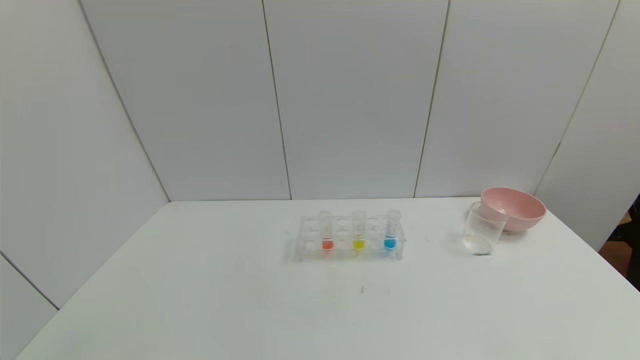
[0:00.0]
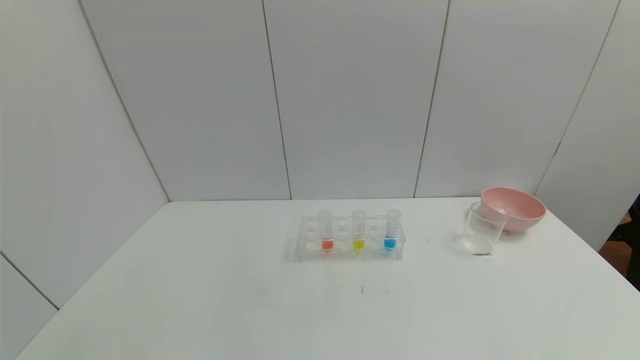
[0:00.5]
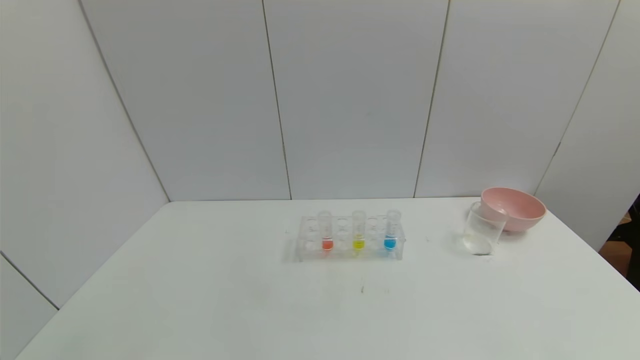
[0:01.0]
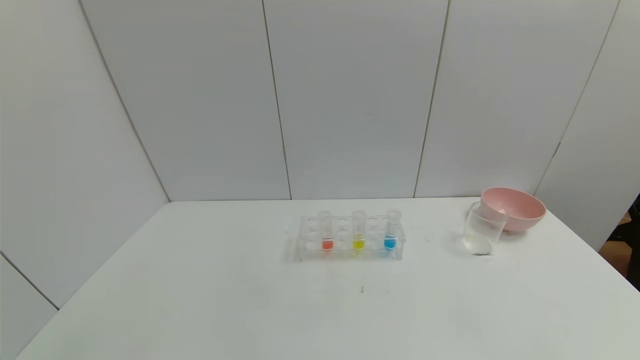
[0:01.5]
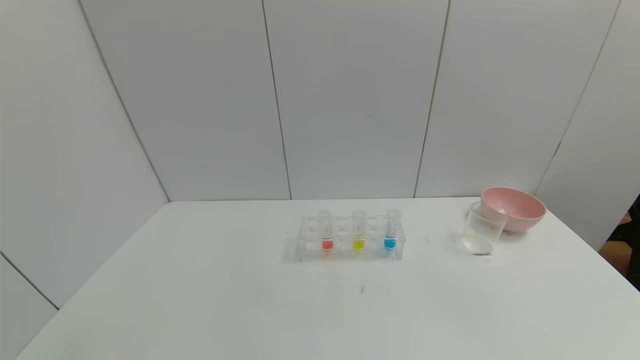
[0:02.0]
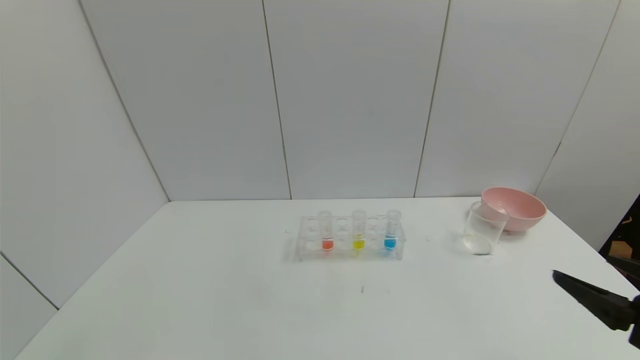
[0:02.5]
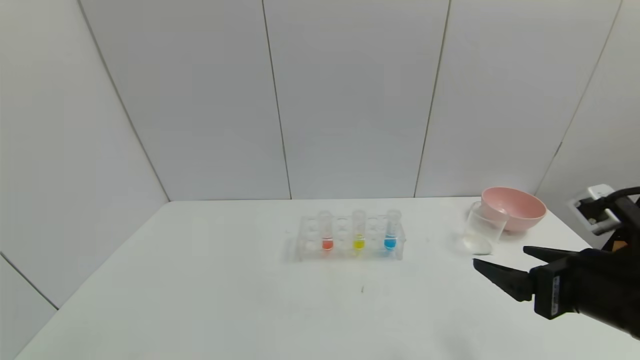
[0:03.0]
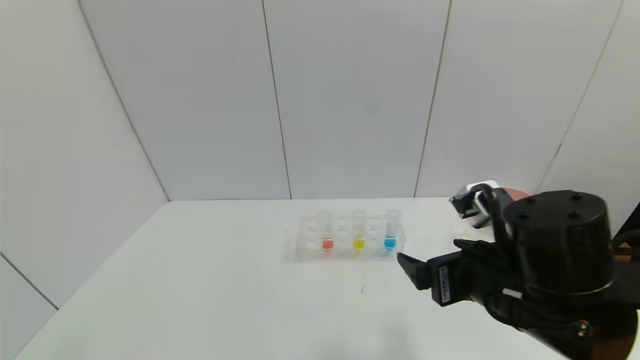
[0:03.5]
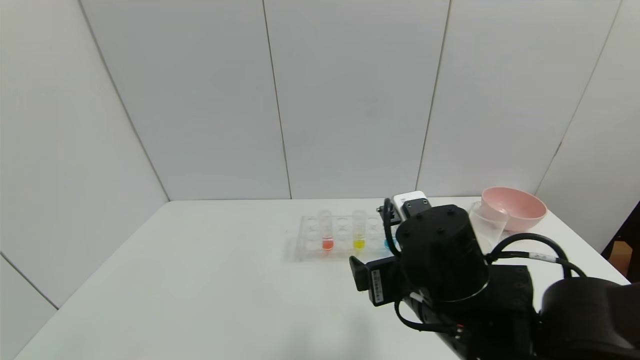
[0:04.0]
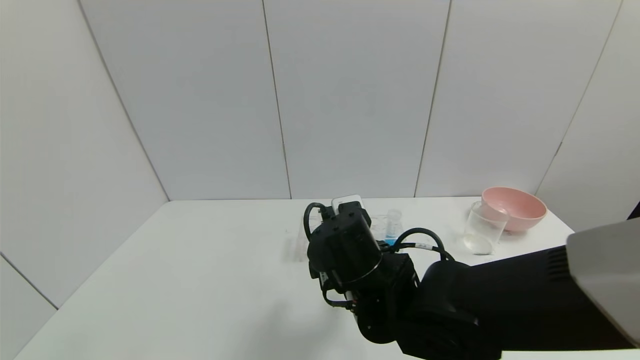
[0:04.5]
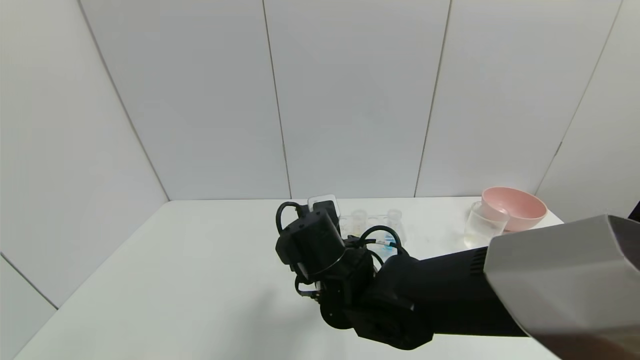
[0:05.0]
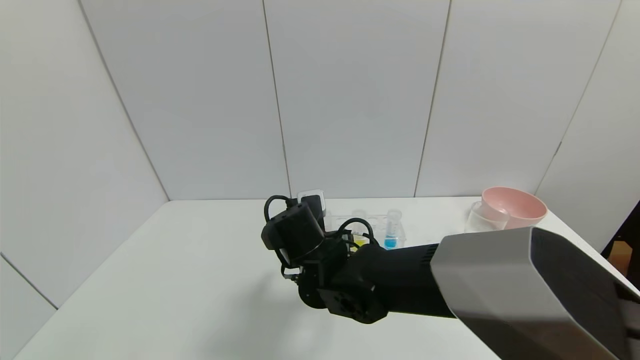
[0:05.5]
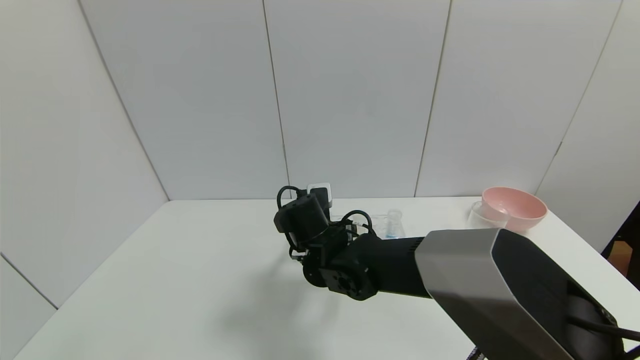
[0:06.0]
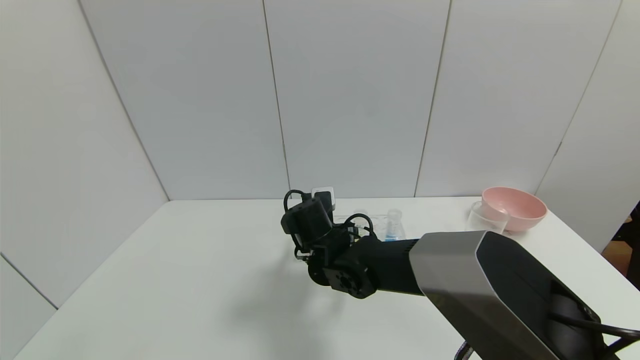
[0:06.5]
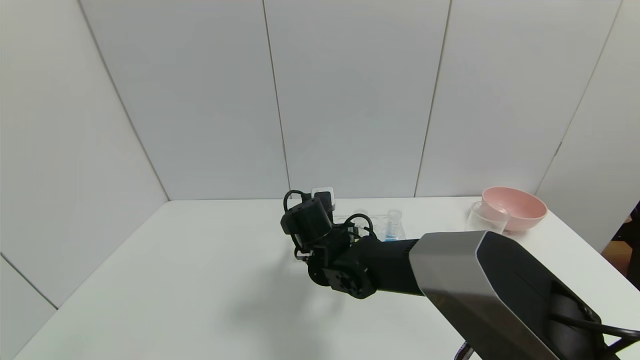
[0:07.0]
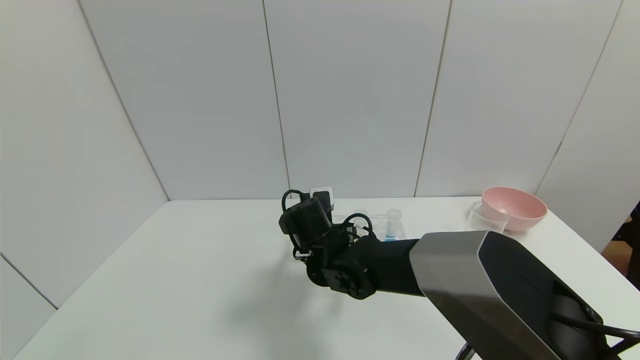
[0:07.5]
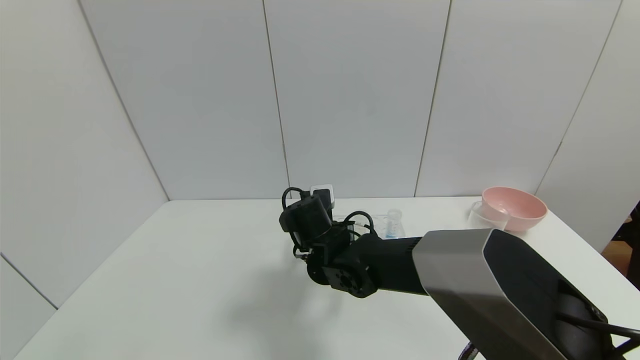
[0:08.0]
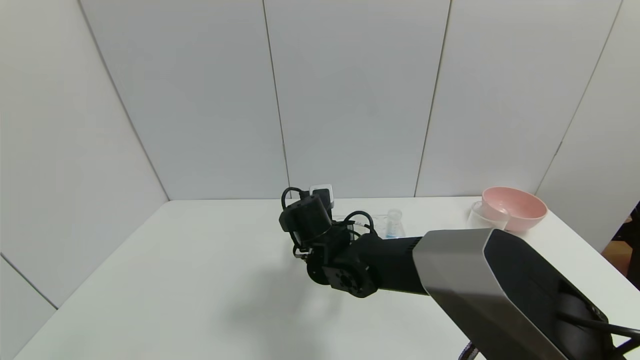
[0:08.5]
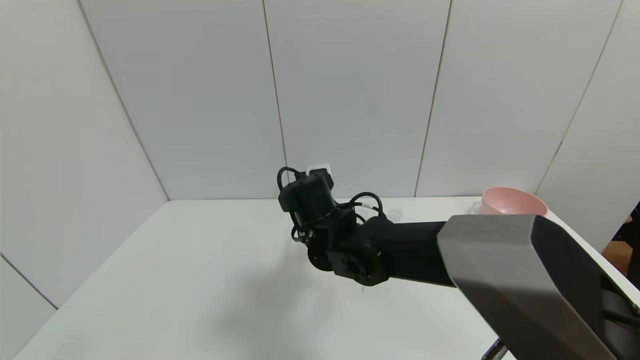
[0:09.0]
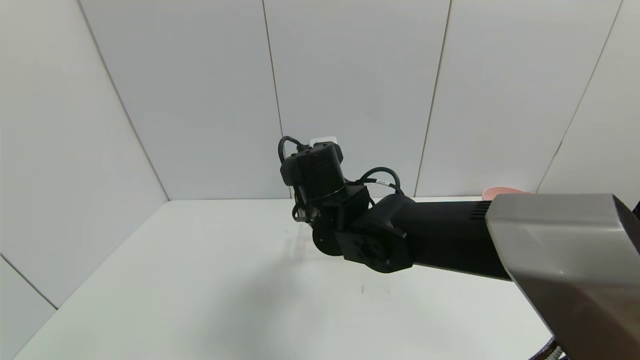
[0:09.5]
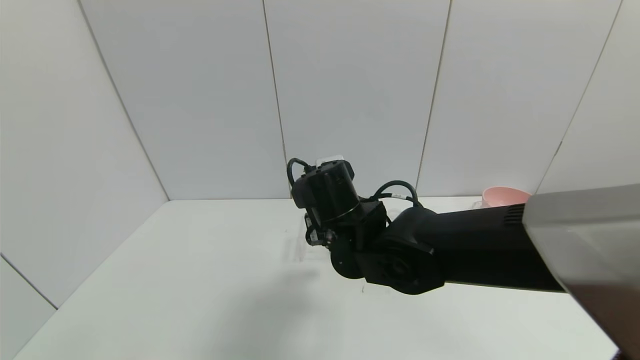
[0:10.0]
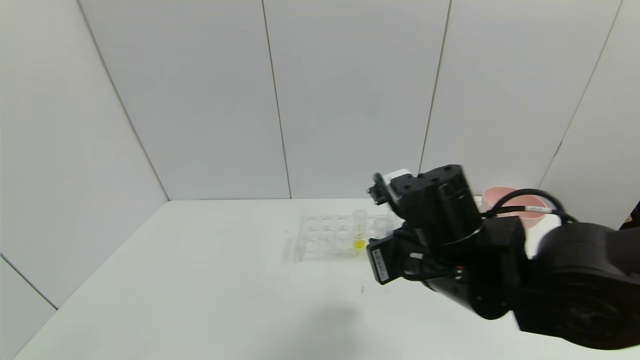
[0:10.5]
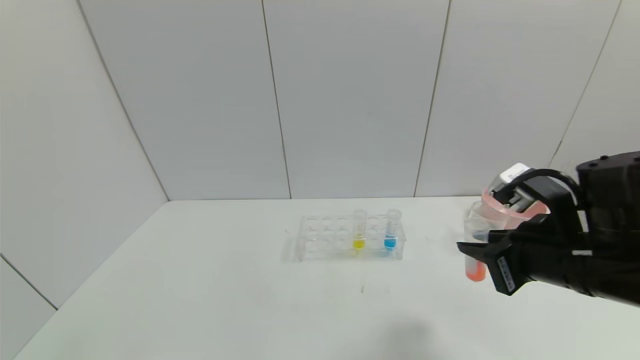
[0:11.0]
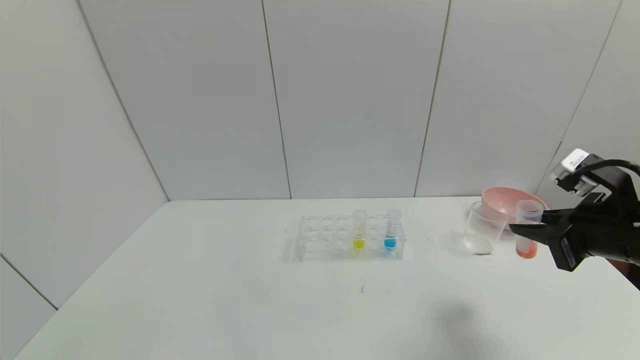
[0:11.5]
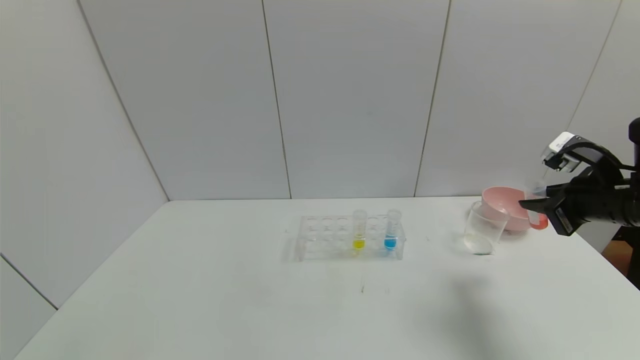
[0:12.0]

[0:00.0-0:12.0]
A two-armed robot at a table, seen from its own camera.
Task of the whole recording: pick up the test tube with yellow pigment and the test tube with red pigment by grippers and pour them into the beaker.
Step, 0:00.0 to 0:08.0: Grasp the red reagent with the right gripper.
0:02.0 to 0:04.0: The right gripper travels to the left and forward by roughly 35 cm.
0:04.0 to 0:06.0: The right gripper shifts approximately 20 cm forward, to the left and downward.
0:06.0 to 0:08.0: The right gripper closes its fingers.
0:08.0 to 0:10.0: The right gripper shifts about 10 cm upward and backward.
0:10.0 to 0:12.0: The right gripper shifts some 35 cm to the right.

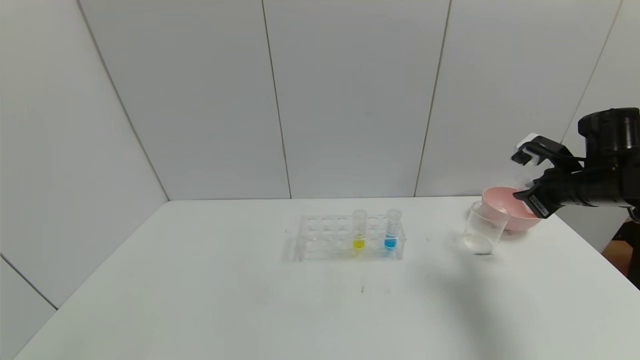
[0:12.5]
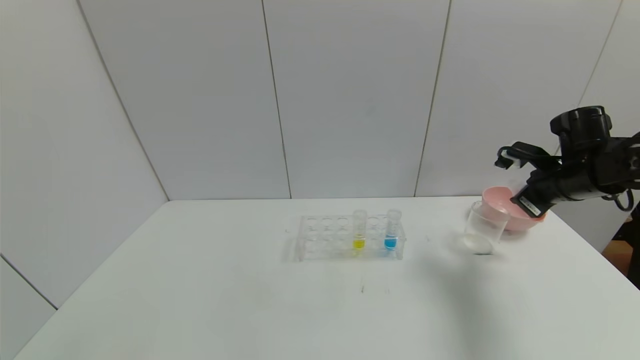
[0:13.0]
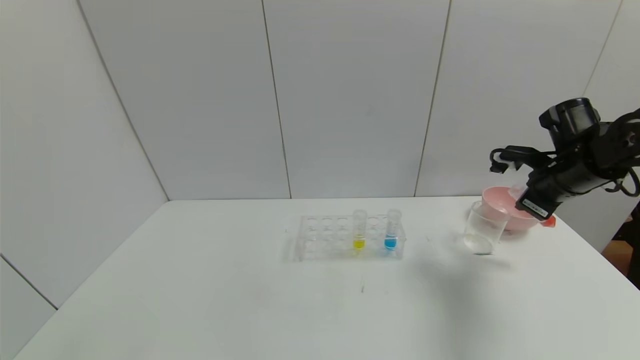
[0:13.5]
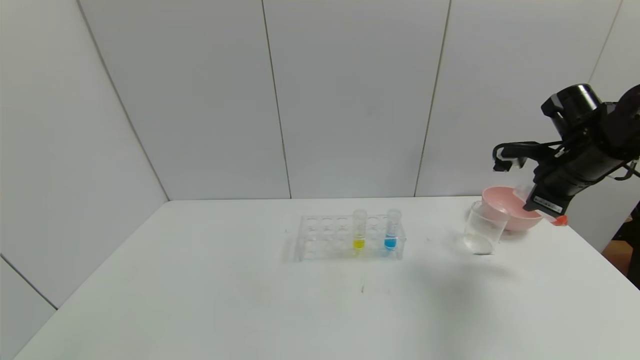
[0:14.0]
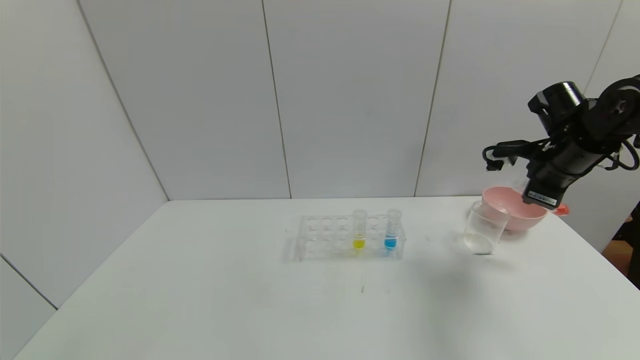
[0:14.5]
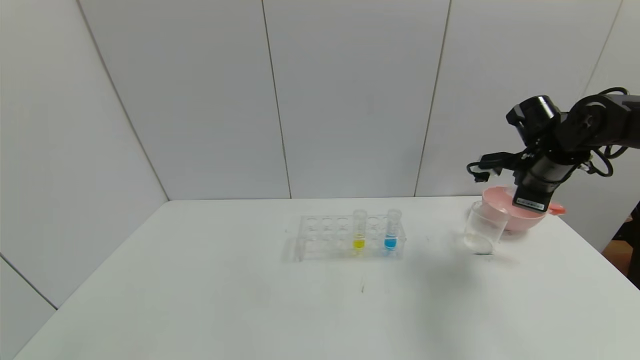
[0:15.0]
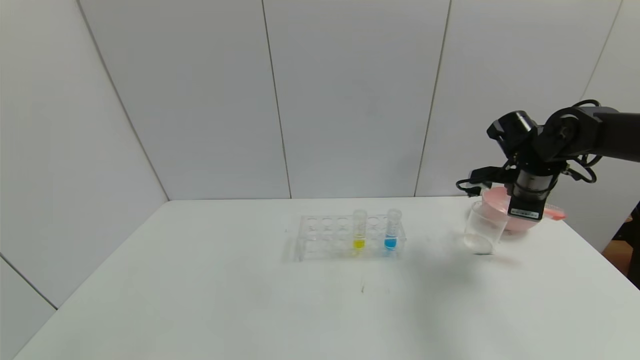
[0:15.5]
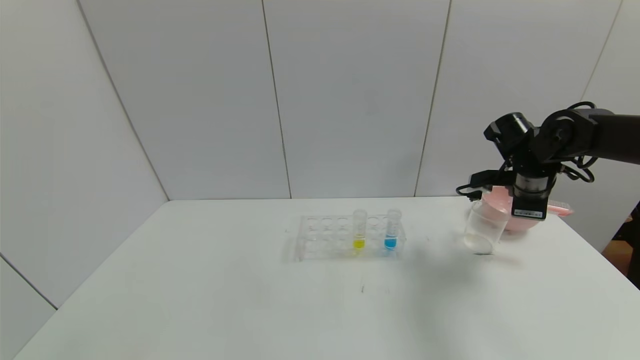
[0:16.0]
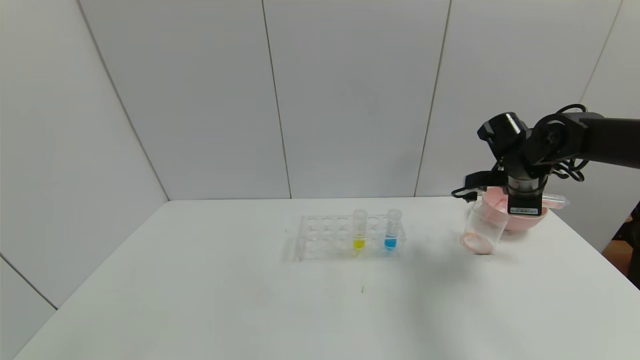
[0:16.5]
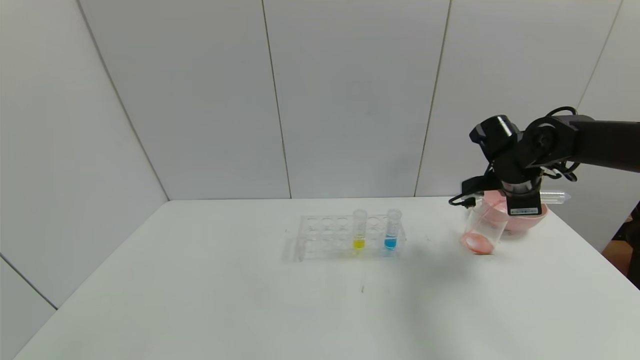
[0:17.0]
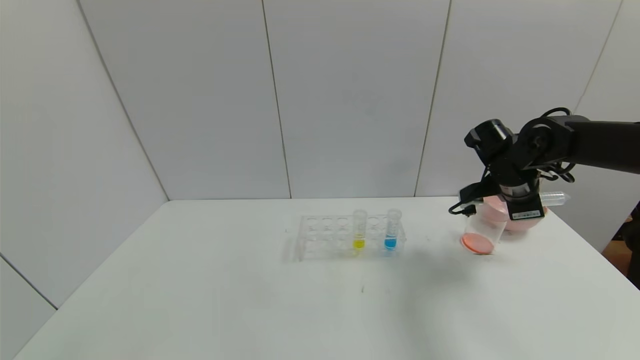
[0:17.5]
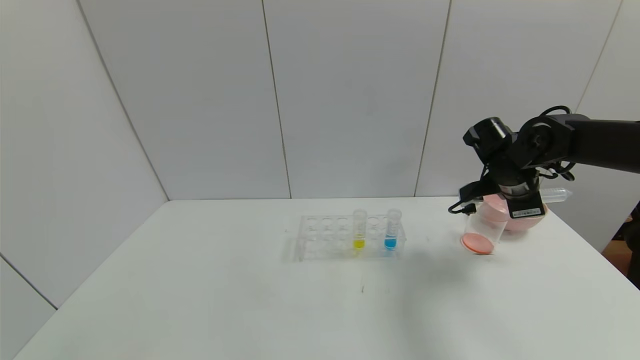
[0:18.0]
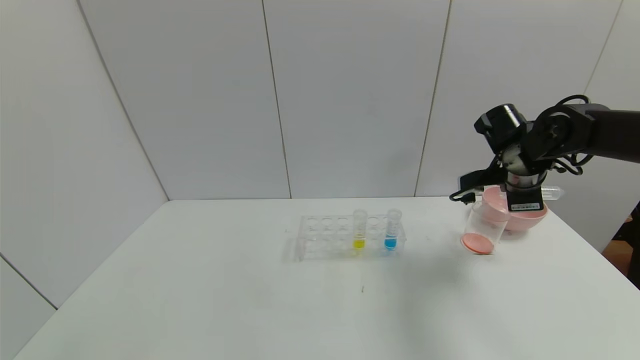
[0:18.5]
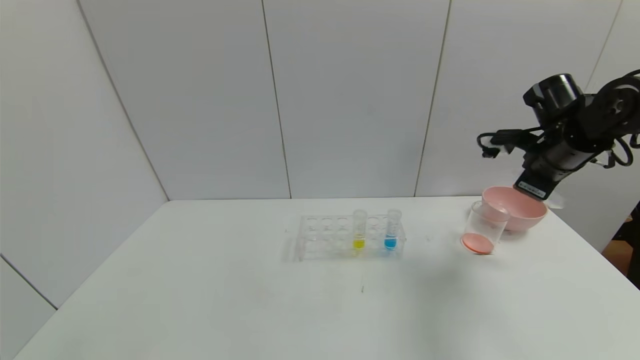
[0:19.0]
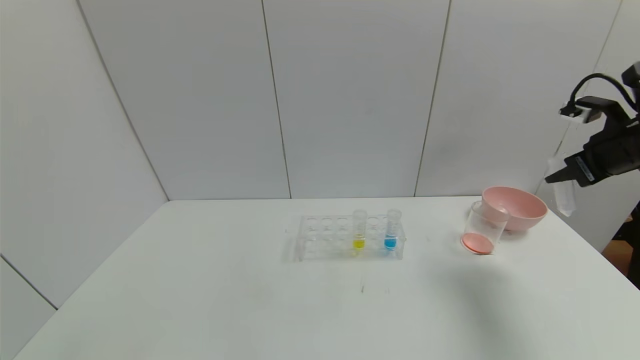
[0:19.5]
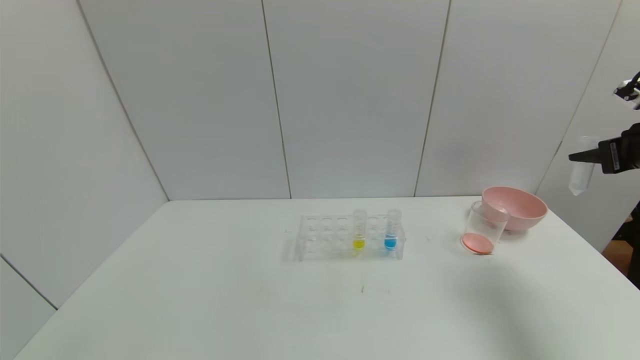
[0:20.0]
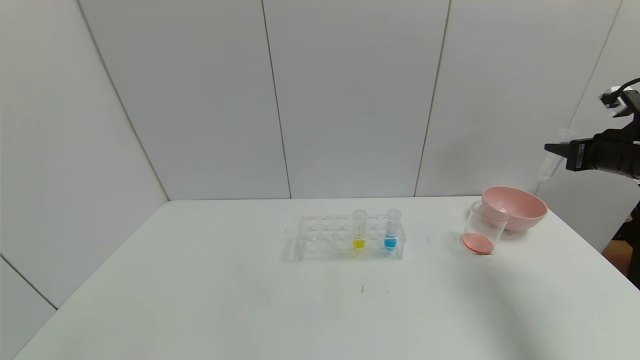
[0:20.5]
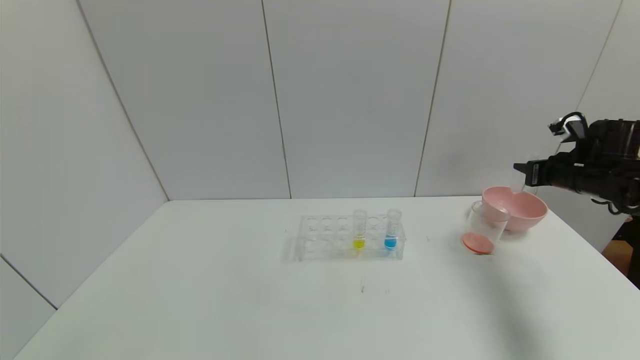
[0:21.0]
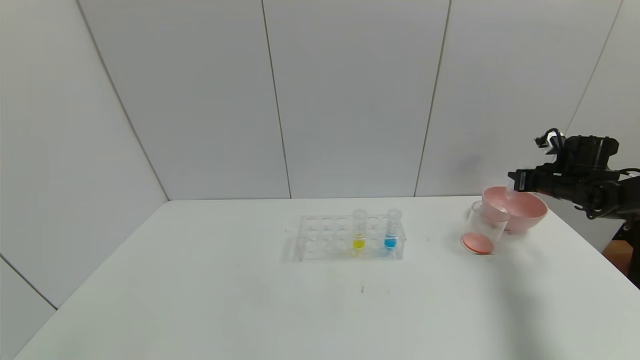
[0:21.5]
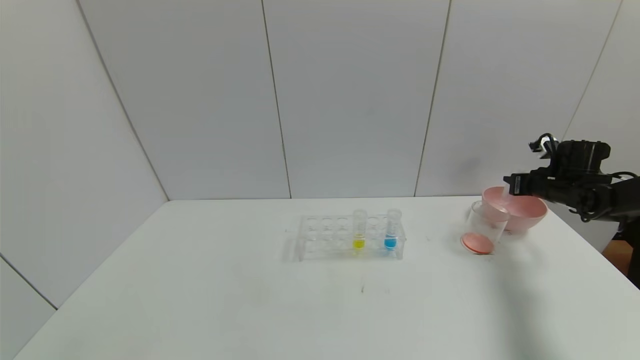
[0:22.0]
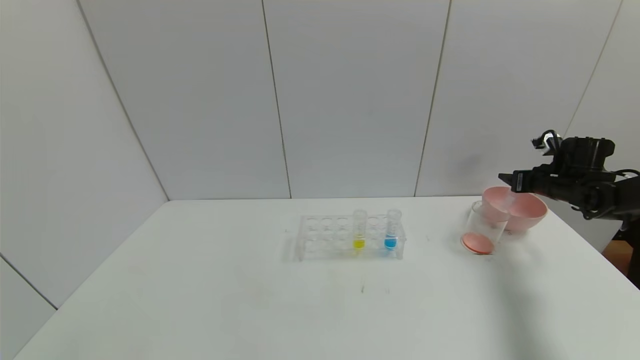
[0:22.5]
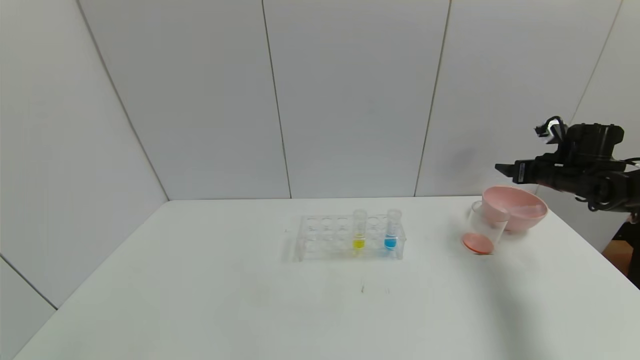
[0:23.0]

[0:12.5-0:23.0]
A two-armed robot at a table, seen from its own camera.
Task of the whole recording: pick up the test tube with yellow pigment and the test tube with red pigment by grippers and pour them into the beaker.
Step, 0:12.5 to 0:18.0: Pour the red reagent into the graduated cylinder with the right gripper.
Step, 0:18.5 to 0:22.5: Place the test tube into the pink bowl with the right gripper.
0:12.5 to 0:14.5: The right gripper moves about 5 cm.
0:14.5 to 0:16.5: The right gripper changes place by some 5 cm.
0:16.5 to 0:19.0: The right gripper heads upward, covering some 5 cm.
0:19.0 to 0:21.0: The right gripper heads to the right and downward, covering roughly 10 cm.
0:21.0 to 0:23.0: The right gripper opens its fingers.
